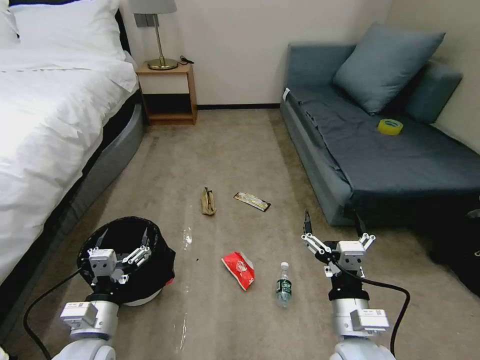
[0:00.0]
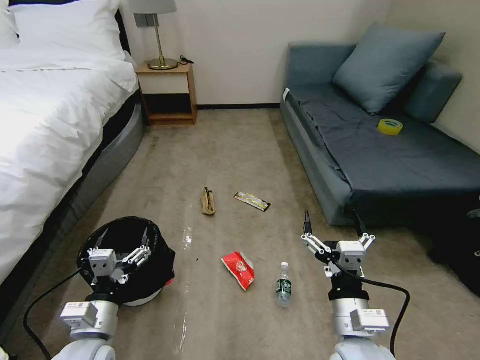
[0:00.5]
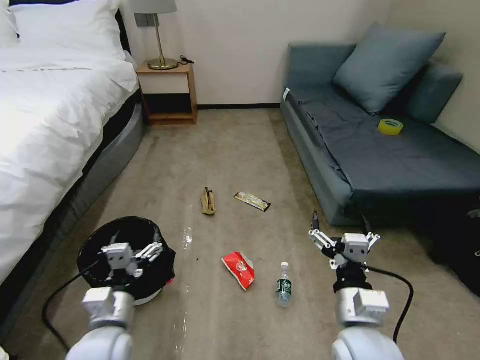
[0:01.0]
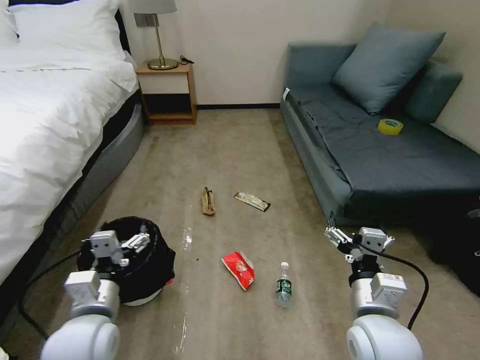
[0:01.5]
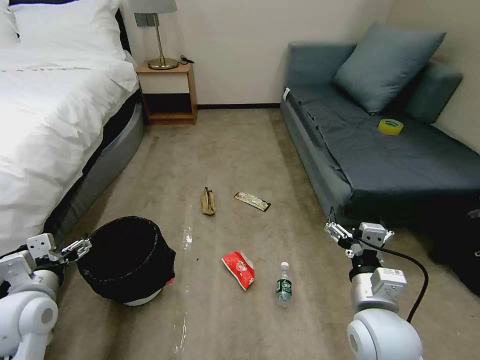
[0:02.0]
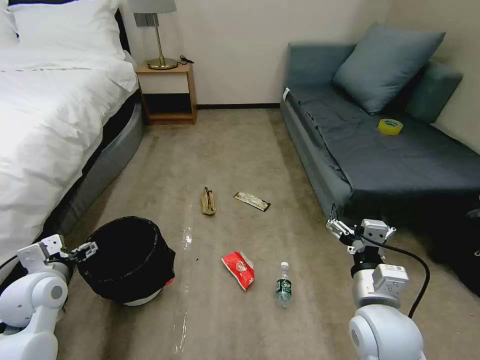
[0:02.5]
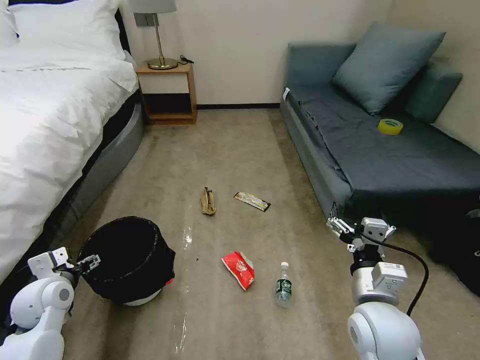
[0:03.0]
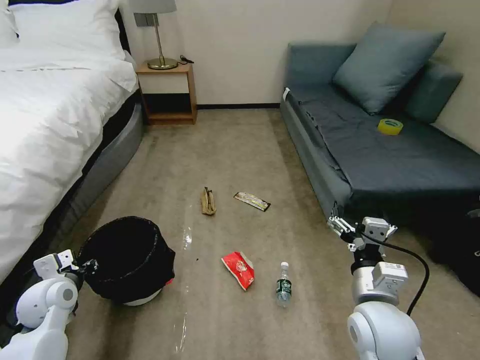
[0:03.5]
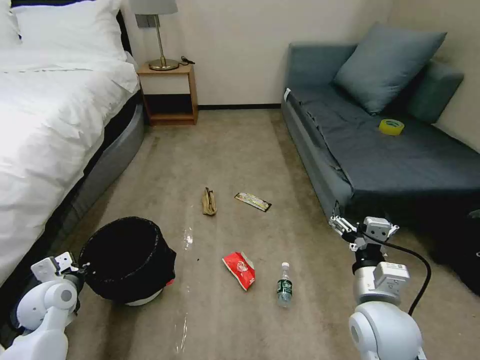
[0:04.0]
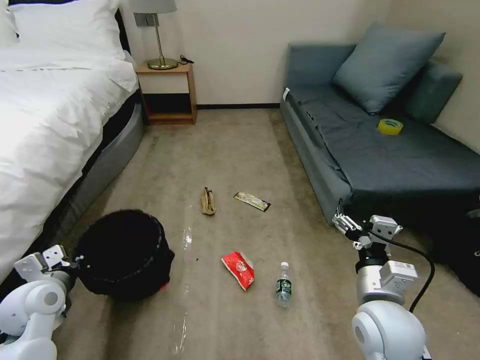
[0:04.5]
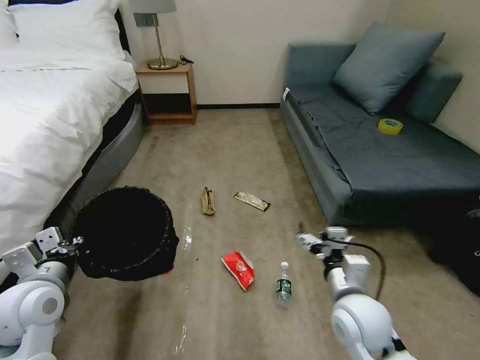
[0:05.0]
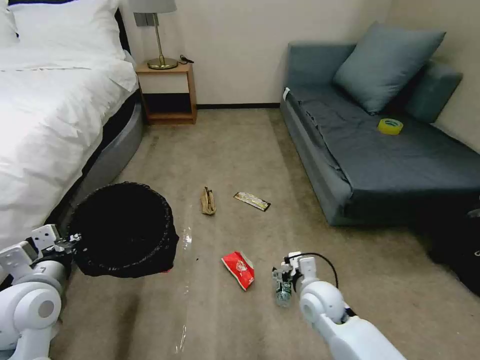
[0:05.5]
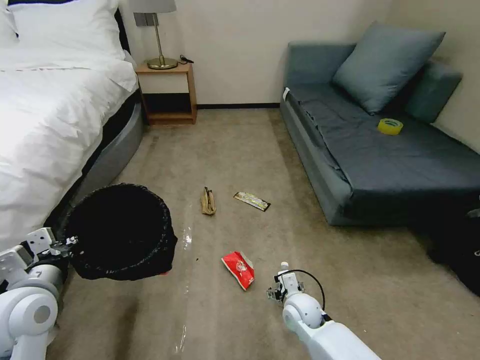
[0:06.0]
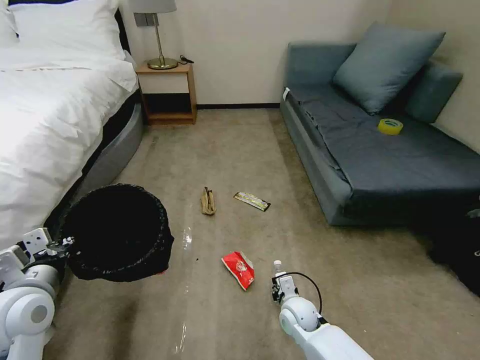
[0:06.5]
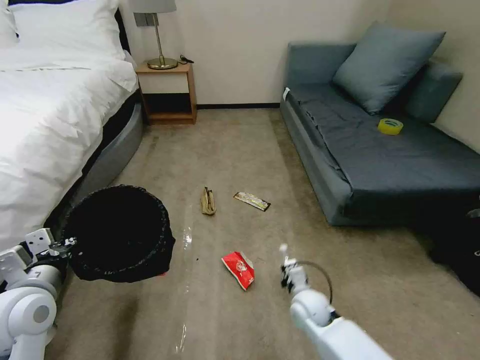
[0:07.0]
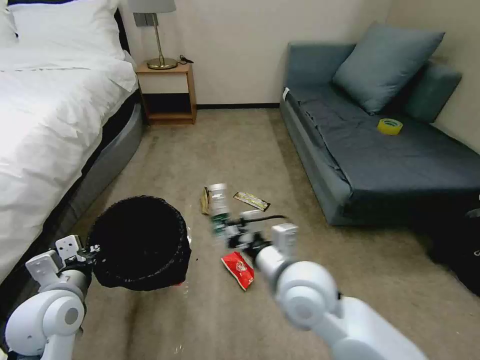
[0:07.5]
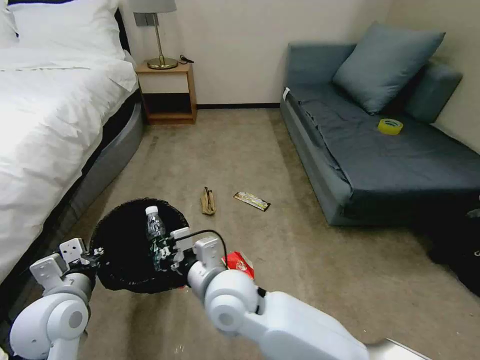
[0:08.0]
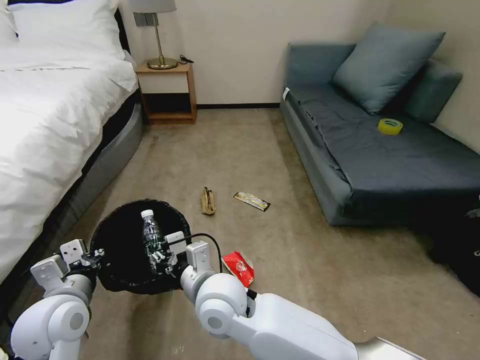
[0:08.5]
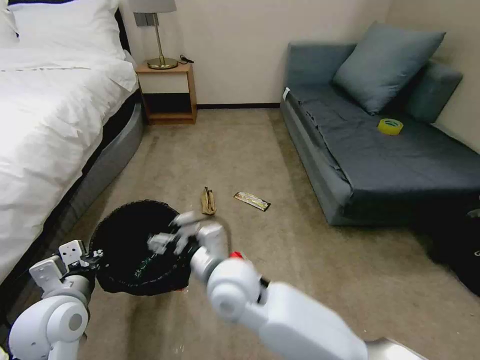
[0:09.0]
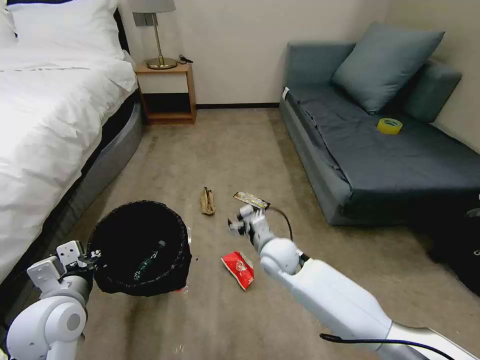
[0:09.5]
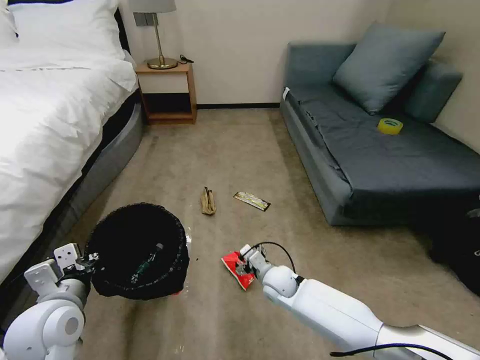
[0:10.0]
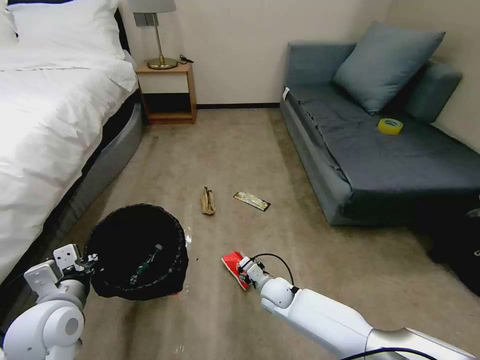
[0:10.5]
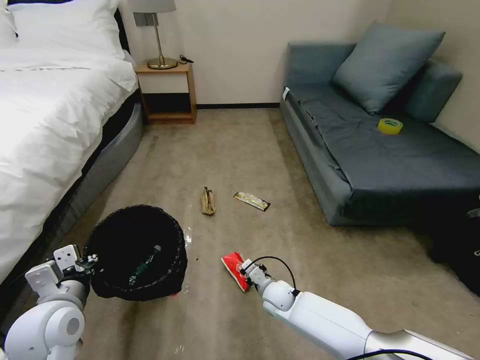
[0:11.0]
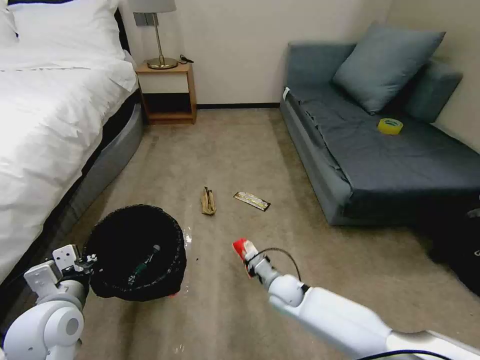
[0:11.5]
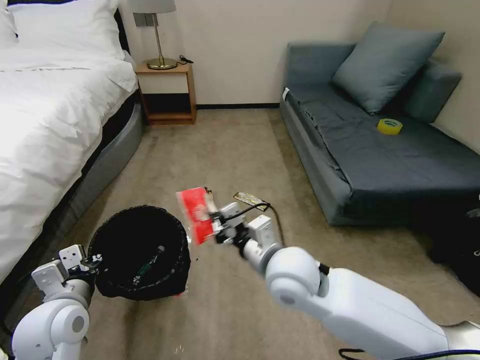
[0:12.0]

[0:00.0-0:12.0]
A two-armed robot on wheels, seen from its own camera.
Task of the whole recording: Pick up the trash bin, then pick up the garbage on the floor and place it into the trash bin.
0:02.0 to 0:04.0: The left gripper moves downward and forward, about 10 cm, and closes its fingers.
0:04.0 to 0:06.0: The left gripper travels upward, backward and to the right by approximately 15 cm, while the right gripper moves downward and forward, some 25 cm.
0:06.0 to 0:08.0: The right gripper is displaced upward and to the left by about 30 cm, and closes up.
0:08.0 to 0:10.0: The right gripper moves downward, to the right and forward, roughly 25 cm, and opens its fingers.
0:10.0 to 0:12.0: The right gripper moves upward, some 25 cm, and closes.

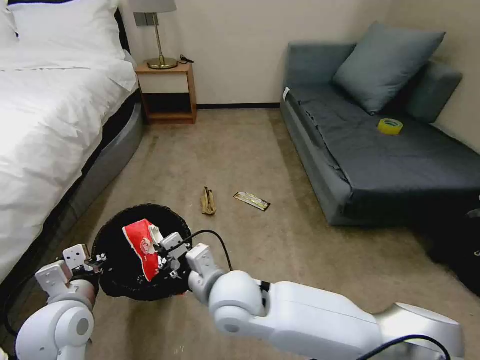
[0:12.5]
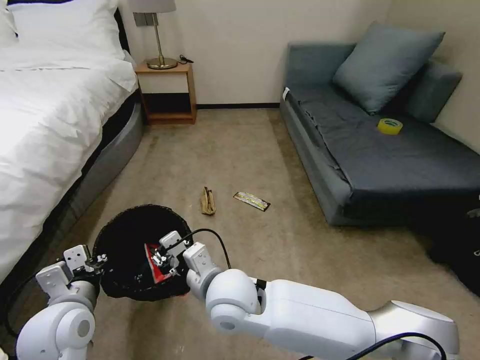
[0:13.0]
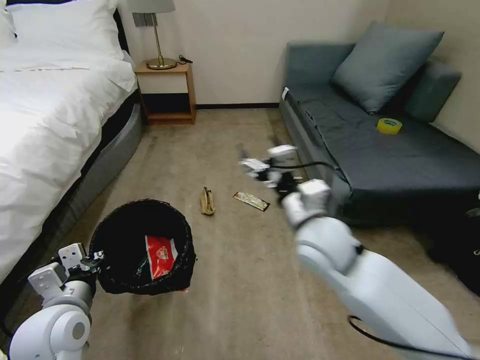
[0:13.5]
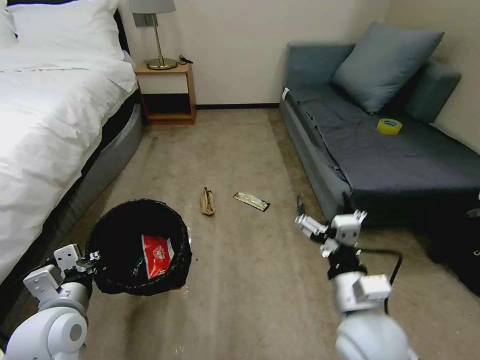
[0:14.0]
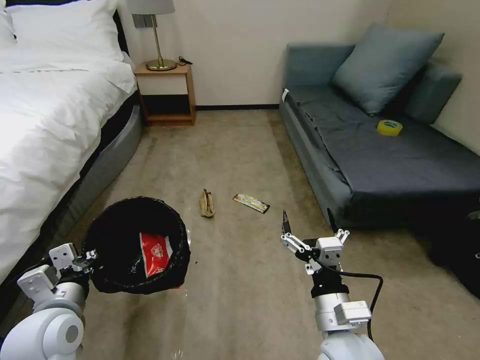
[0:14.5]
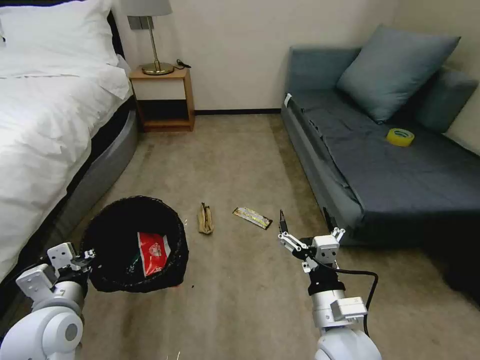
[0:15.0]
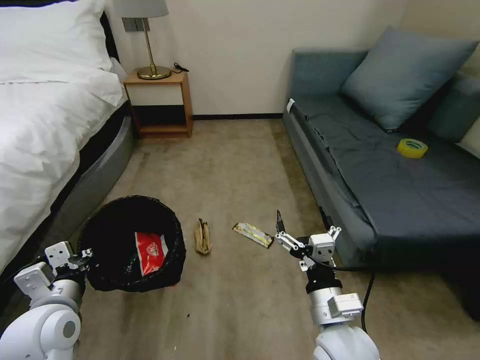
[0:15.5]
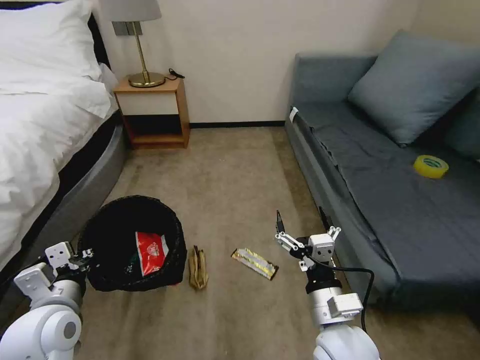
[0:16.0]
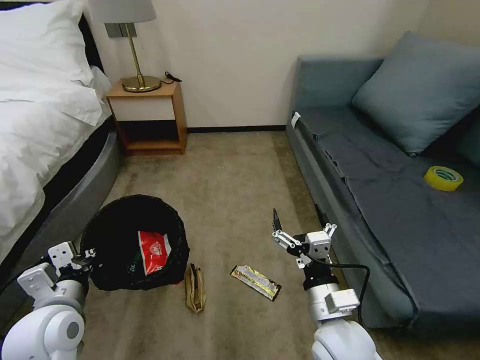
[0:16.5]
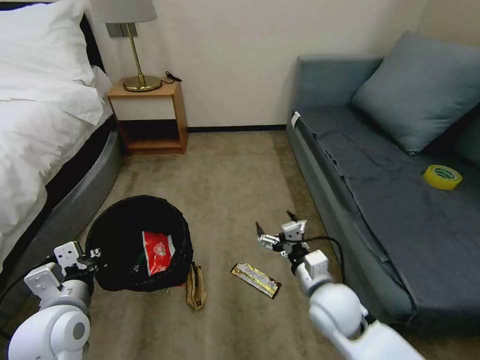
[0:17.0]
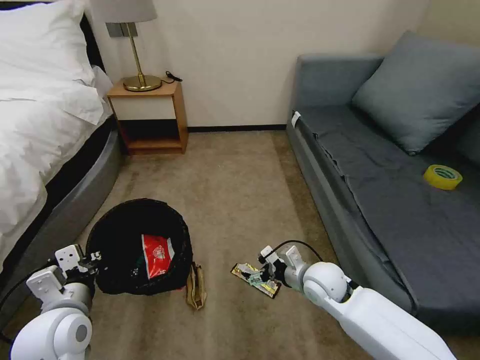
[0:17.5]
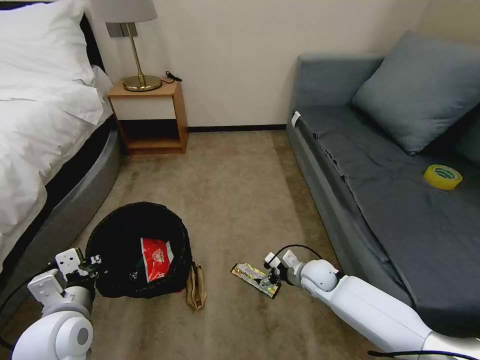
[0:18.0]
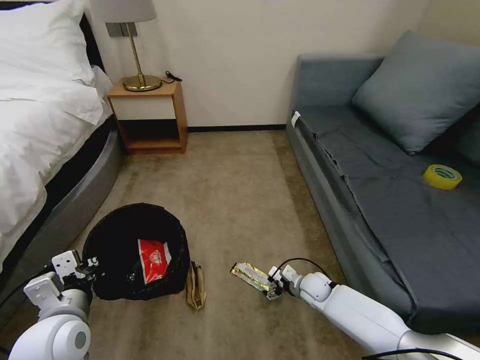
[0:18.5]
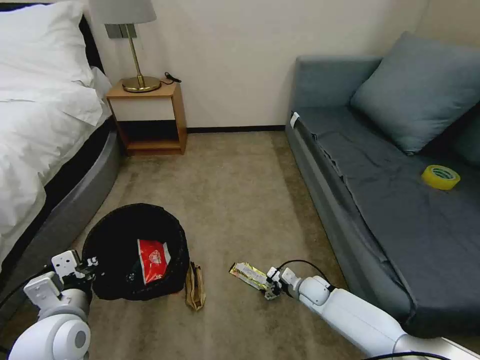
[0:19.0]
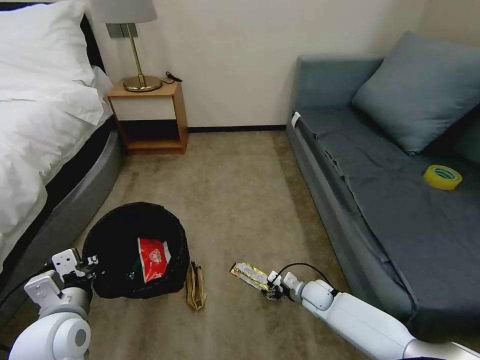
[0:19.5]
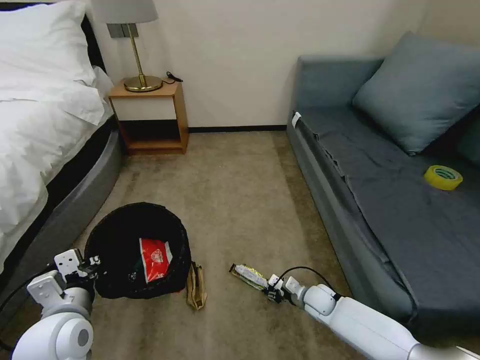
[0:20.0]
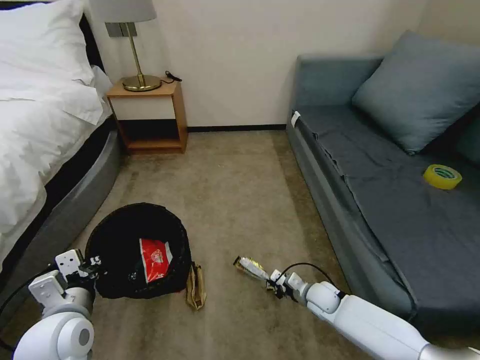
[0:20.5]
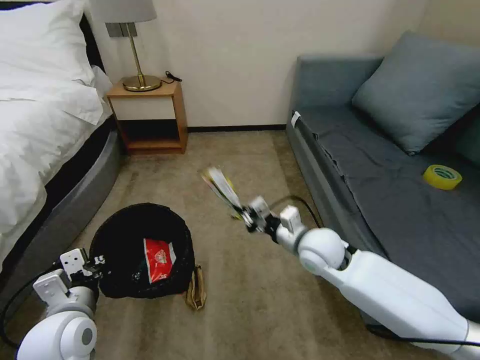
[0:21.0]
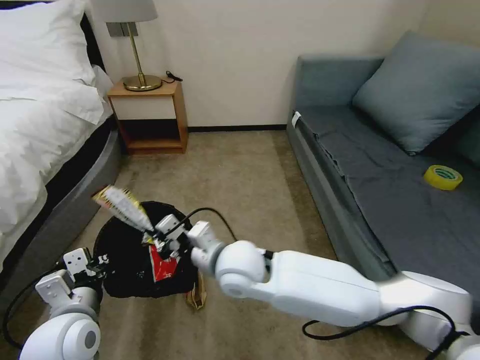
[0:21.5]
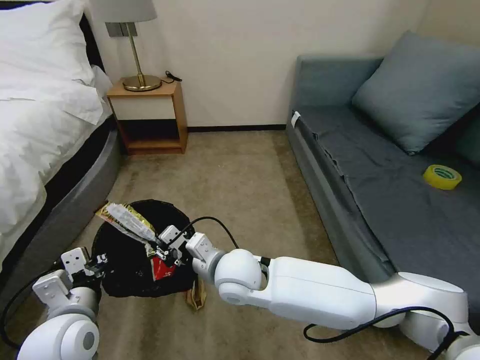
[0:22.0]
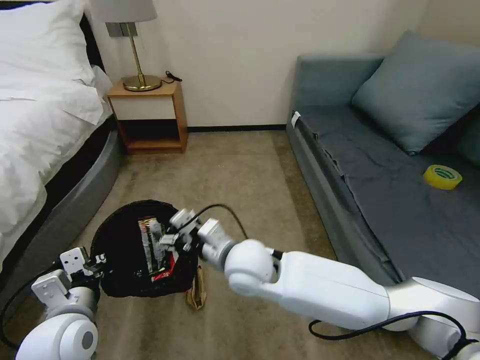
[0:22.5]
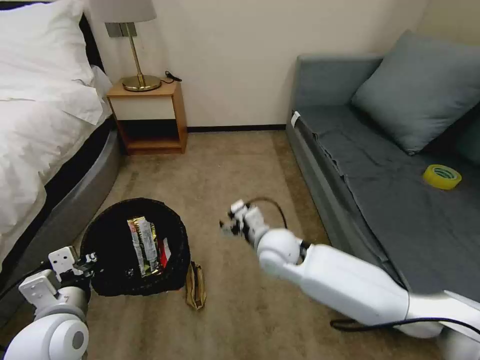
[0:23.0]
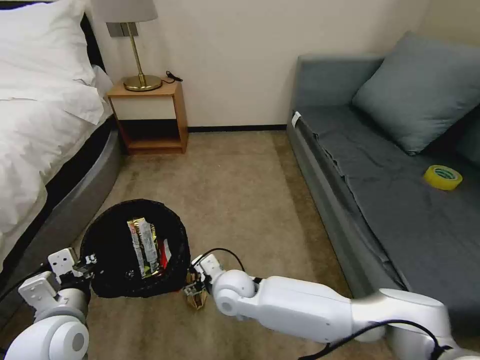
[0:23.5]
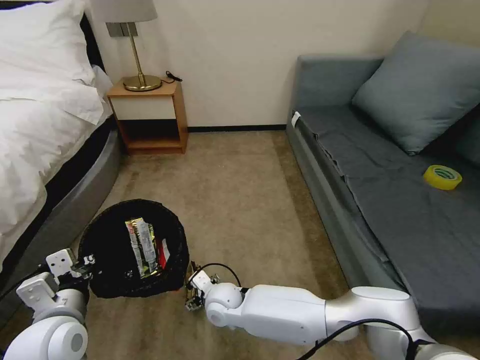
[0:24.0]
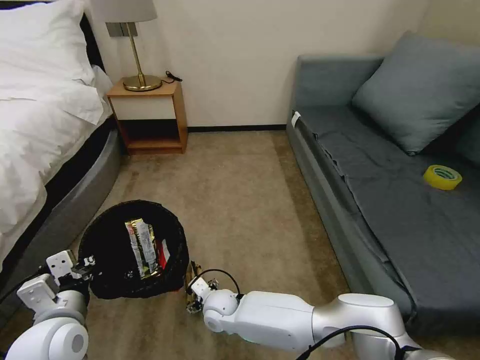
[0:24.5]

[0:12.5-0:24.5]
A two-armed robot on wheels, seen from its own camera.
Task of the whole recording: Pick up the trash bin, then pick up the garbage on the floor and place it into the trash bin.
0:12.5 to 0:14.5: The right gripper travels to the right and backward by roughly 20 cm, and opens.
0:16.5 to 0:18.5: The right gripper moves downward and forward, roughly 30 cm.
0:18.5 to 0:20.5: The right gripper closes up.
0:20.5 to 0:22.5: The right gripper shifts about 35 cm upward and to the left, and opens.
0:22.5 to 0:24.5: The right gripper travels downward by some 25 cm.

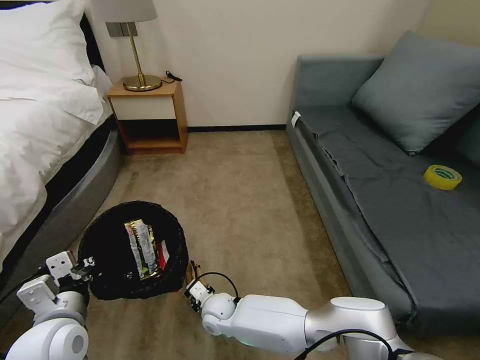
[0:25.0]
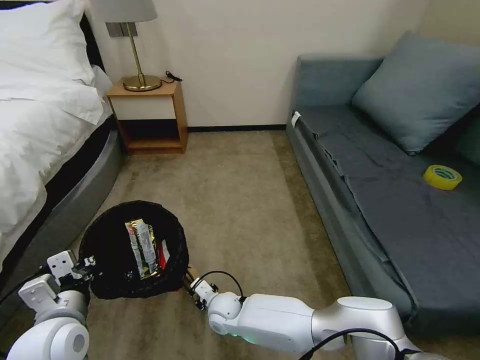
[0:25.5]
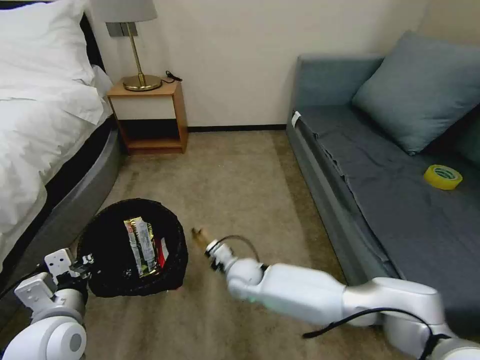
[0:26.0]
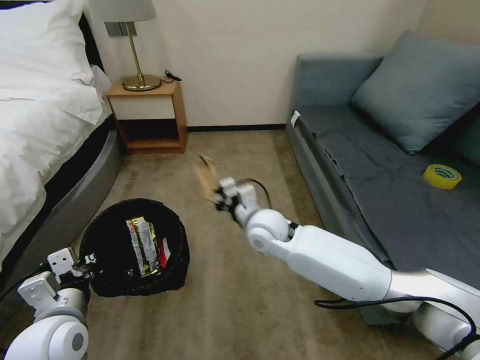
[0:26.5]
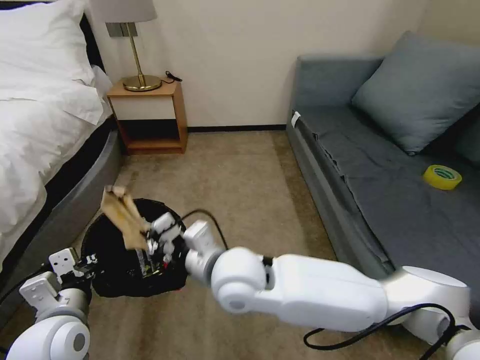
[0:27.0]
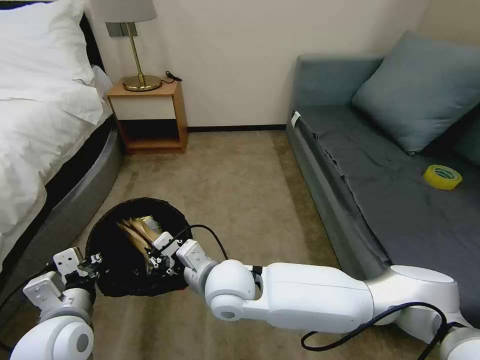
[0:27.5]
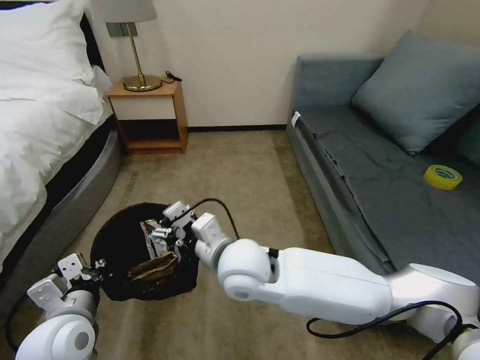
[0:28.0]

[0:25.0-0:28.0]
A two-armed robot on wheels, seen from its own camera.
Task of the whole recording: Pick up the trash bin, then pick up the garbage on the floor and place it into the trash bin.
0:25.0 to 0:26.5: The right gripper moves upward, to the right and forward, about 30 cm, and closes.
0:26.5 to 0:28.0: The right gripper travels backward and to the left by about 15 cm, and opens its fingers.
